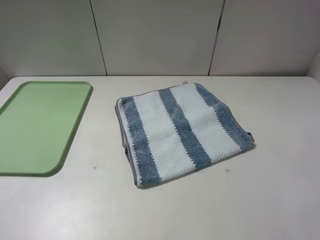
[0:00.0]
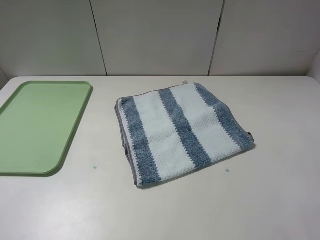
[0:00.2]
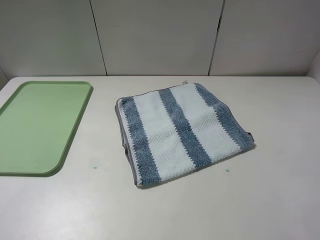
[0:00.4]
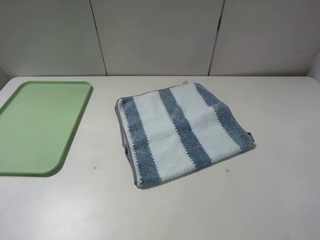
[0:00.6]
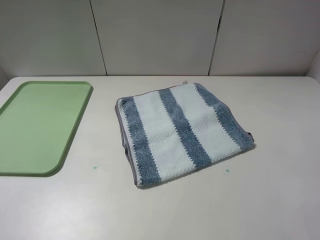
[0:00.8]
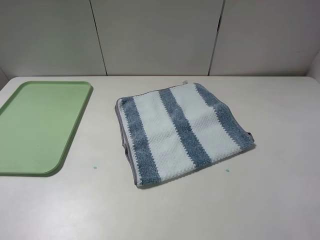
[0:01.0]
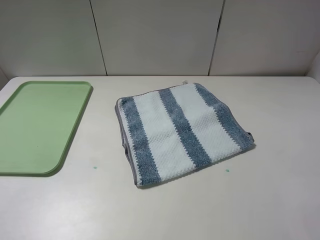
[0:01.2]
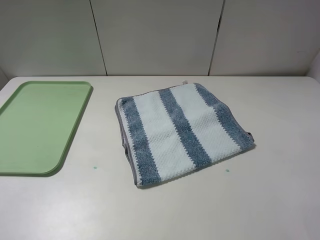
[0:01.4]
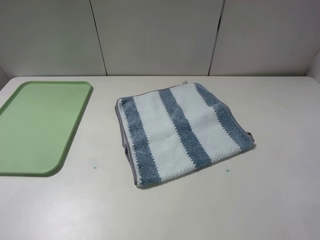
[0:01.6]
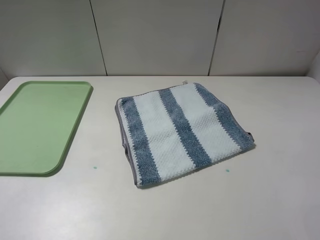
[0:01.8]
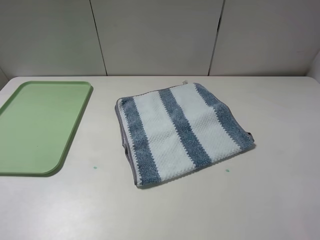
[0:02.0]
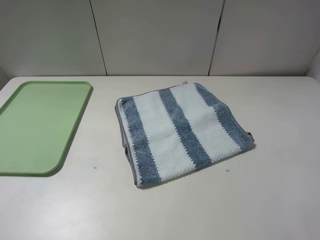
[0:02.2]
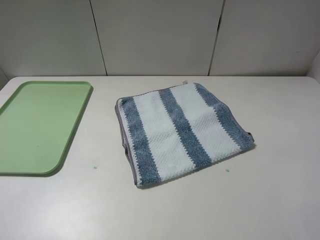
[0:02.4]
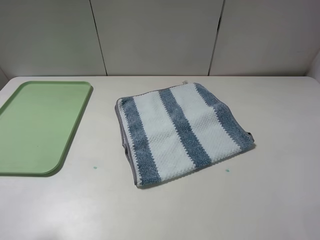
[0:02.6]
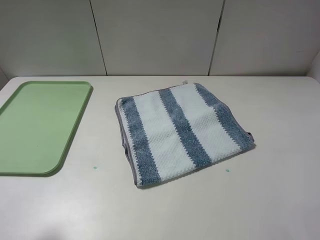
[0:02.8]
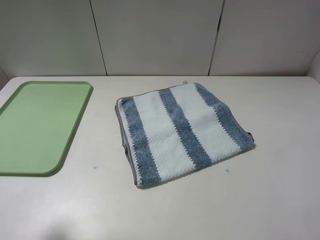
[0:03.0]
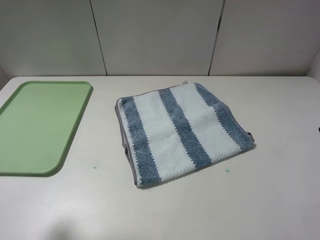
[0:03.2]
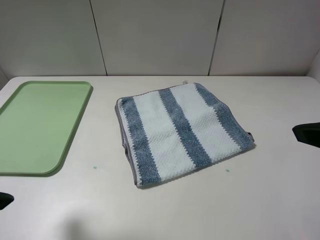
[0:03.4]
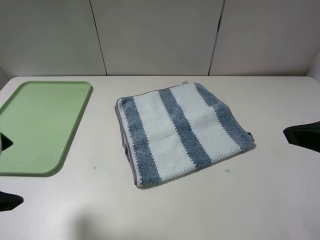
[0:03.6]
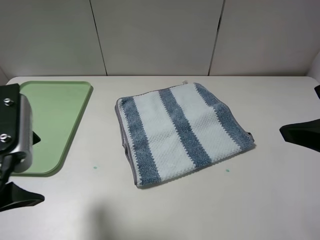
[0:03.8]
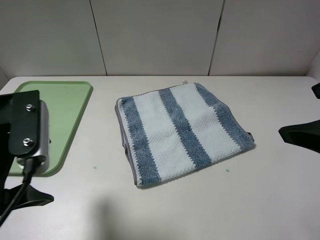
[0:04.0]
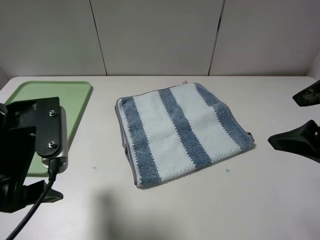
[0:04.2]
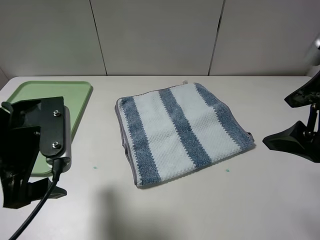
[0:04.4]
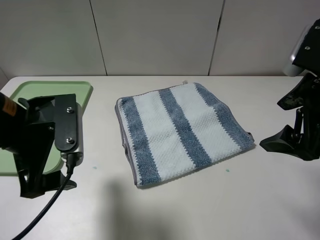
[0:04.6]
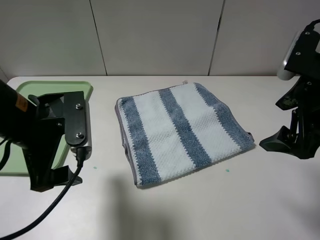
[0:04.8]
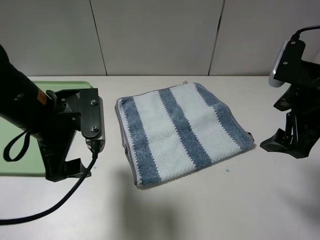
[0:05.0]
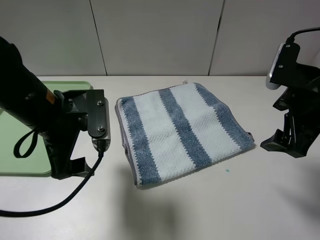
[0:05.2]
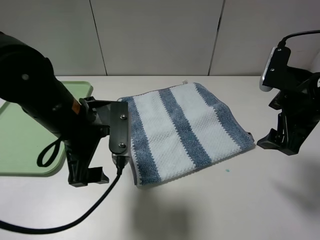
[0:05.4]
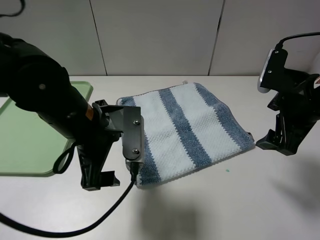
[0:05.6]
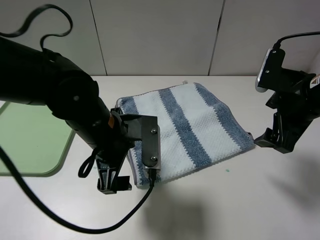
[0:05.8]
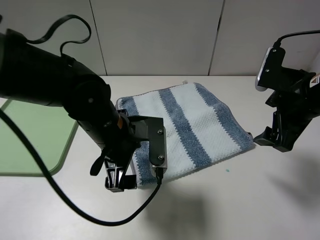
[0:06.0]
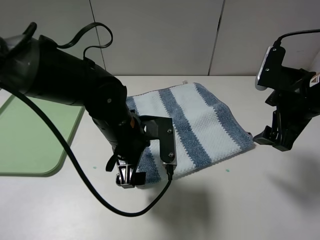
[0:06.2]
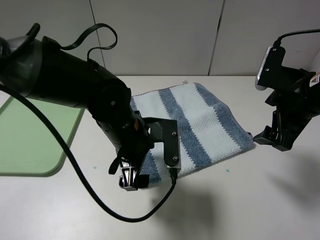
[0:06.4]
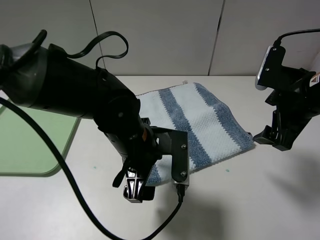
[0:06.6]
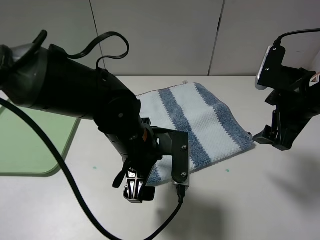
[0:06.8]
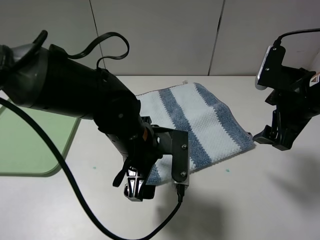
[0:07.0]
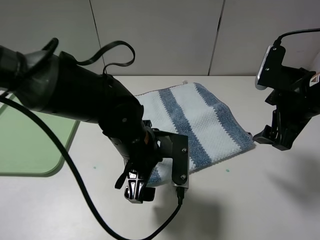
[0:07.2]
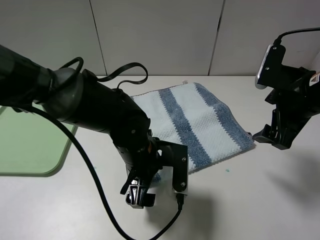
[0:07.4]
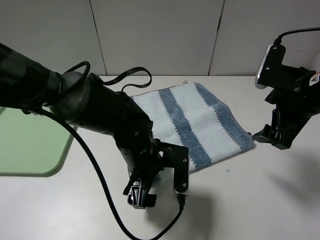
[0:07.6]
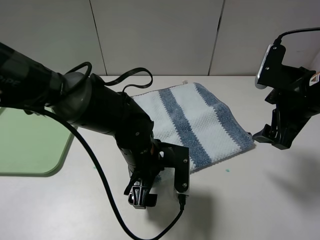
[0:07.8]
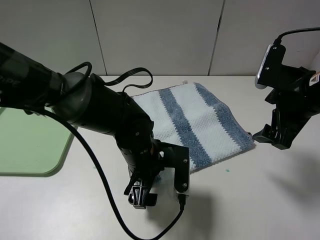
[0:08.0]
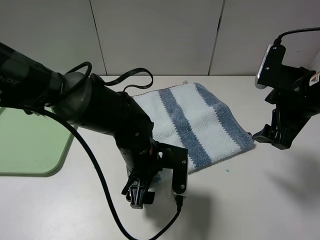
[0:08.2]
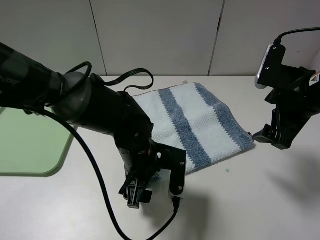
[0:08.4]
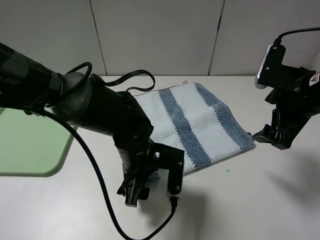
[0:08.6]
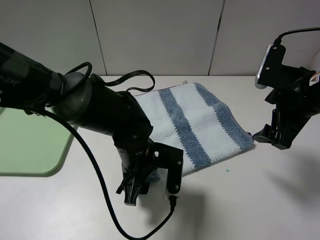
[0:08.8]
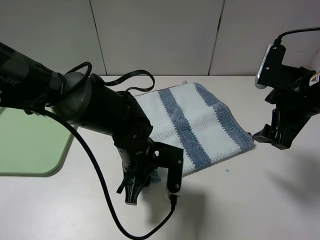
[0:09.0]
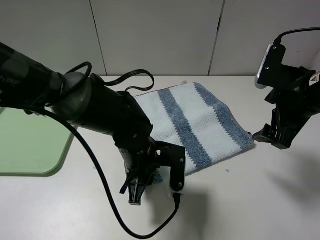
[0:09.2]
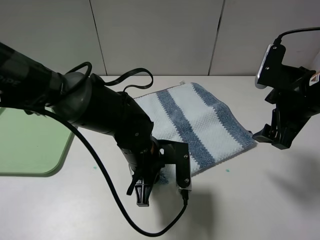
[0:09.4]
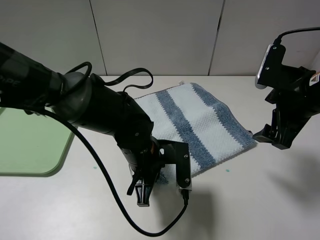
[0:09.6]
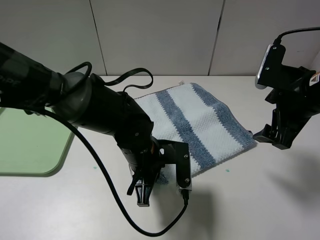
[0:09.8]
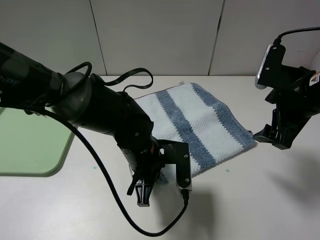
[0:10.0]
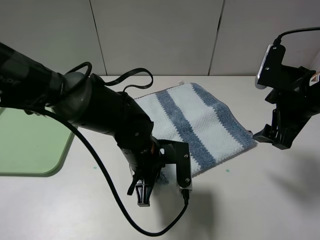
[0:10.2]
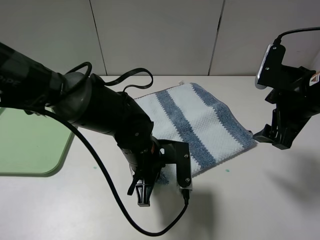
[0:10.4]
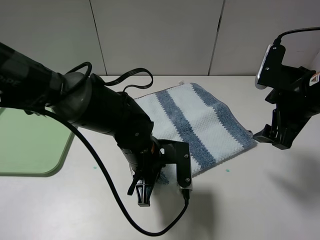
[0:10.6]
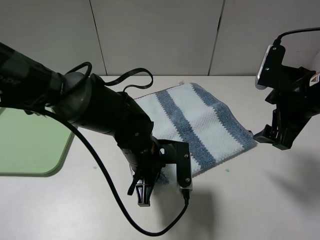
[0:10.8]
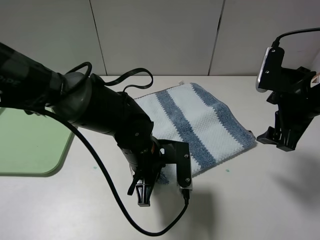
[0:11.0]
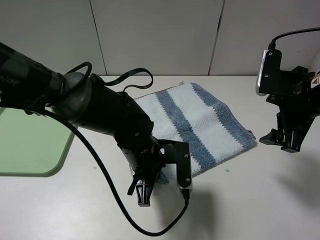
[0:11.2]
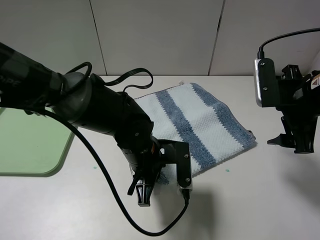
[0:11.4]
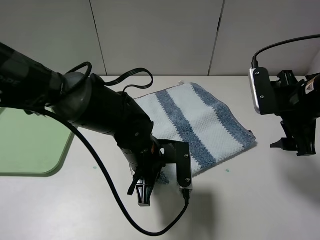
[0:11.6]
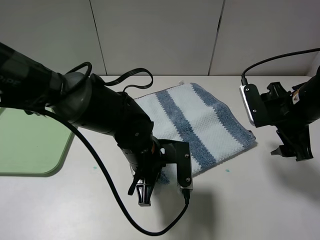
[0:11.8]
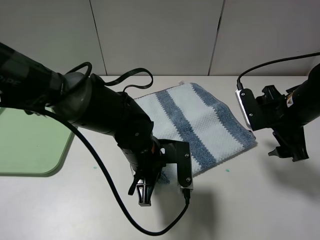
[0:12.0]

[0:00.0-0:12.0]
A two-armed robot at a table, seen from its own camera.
Step, 0:00.0 to 0:09.6: Grasp the blue white towel with the left gripper.
0:00.0 to 0:01.6: Neither gripper changes place.
0:01.6 to 0:03.0: The left gripper heads forward, covering some 10 cm.
0:03.0 to 0:04.4: The right gripper shifts some 10 cm forward and downward. The left gripper goes roughly 15 cm to the right, forward and downward.
0:04.4 to 0:06.0: The left gripper travels to the right, downward and forward by about 15 cm, while the right gripper goes approximately 10 cm forward and downward.
0:06.0 to 0:07.6: The left gripper moves downward, about 5 cm.
0:07.6 to 0:09.0: The left gripper closes.
0:09.0 to 0:10.4: The left gripper closes.
0:10.4 to 0:12.0: The right gripper heads downward, covering roughly 5 cm.

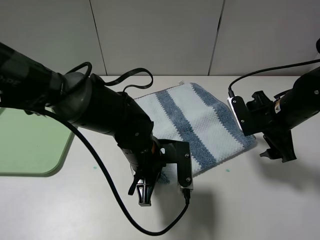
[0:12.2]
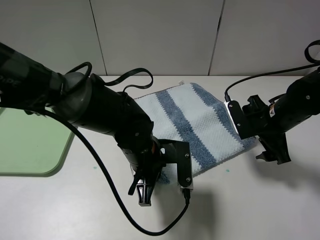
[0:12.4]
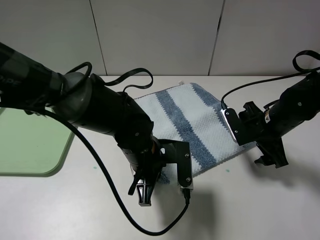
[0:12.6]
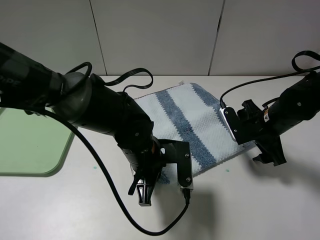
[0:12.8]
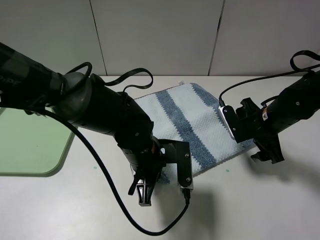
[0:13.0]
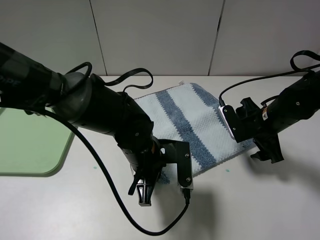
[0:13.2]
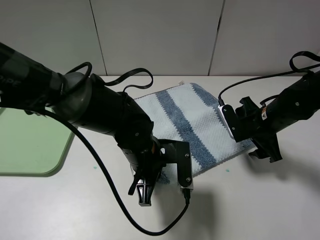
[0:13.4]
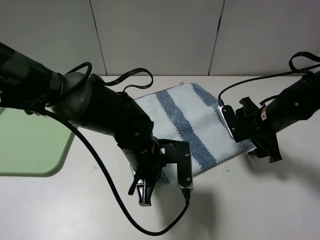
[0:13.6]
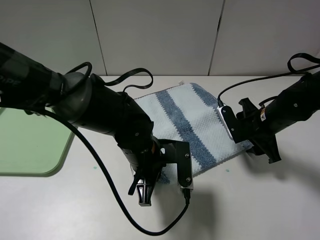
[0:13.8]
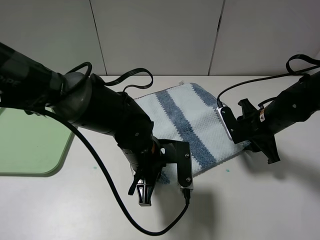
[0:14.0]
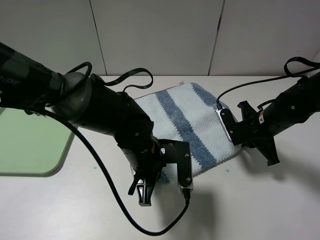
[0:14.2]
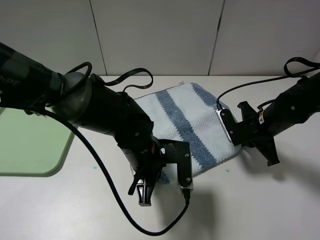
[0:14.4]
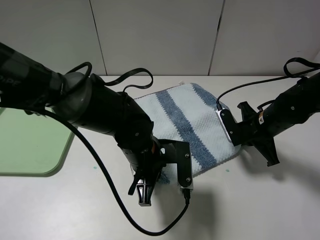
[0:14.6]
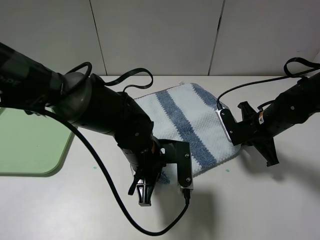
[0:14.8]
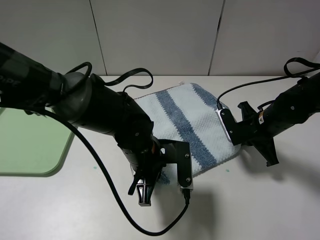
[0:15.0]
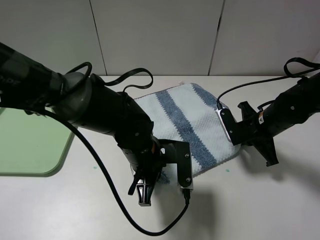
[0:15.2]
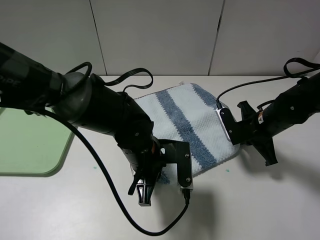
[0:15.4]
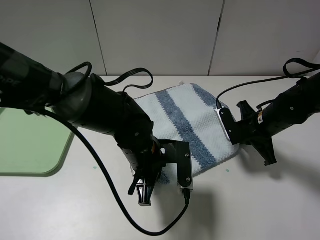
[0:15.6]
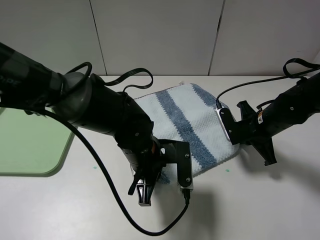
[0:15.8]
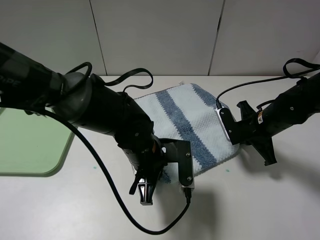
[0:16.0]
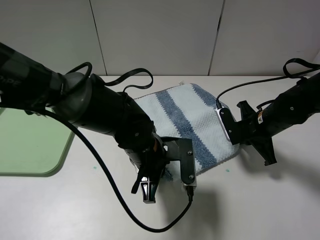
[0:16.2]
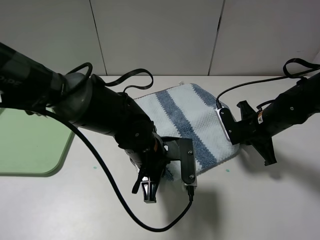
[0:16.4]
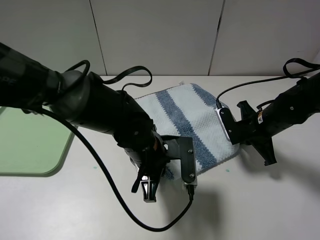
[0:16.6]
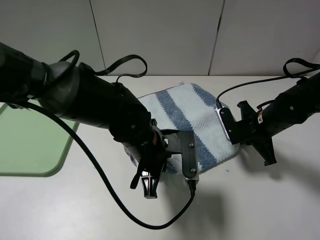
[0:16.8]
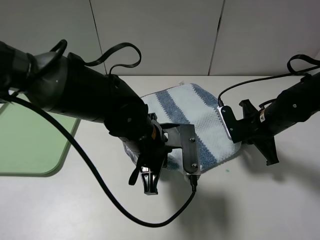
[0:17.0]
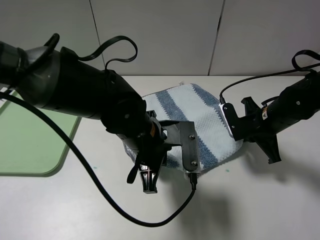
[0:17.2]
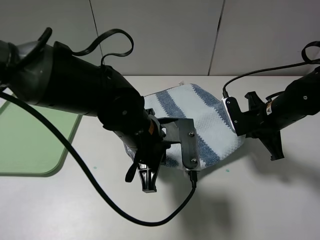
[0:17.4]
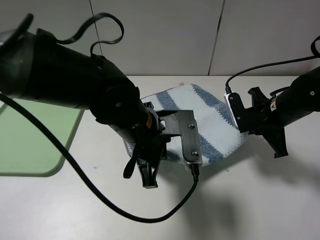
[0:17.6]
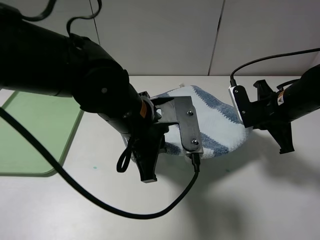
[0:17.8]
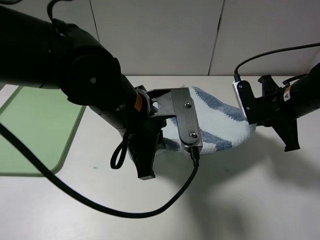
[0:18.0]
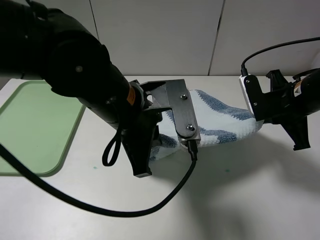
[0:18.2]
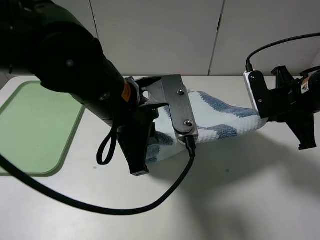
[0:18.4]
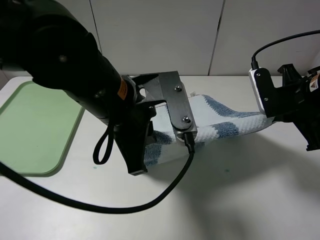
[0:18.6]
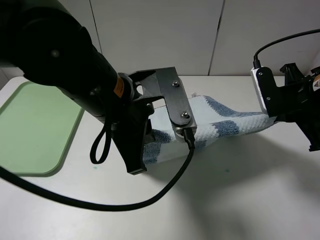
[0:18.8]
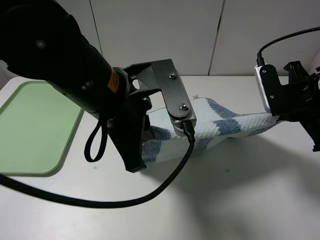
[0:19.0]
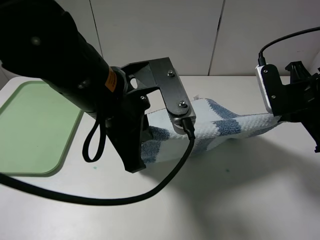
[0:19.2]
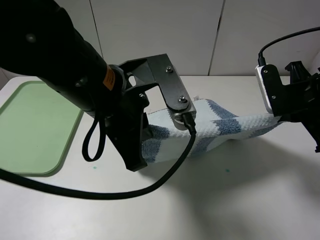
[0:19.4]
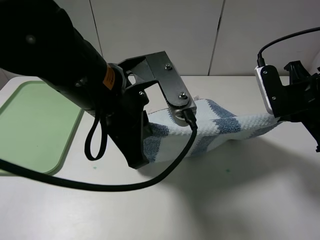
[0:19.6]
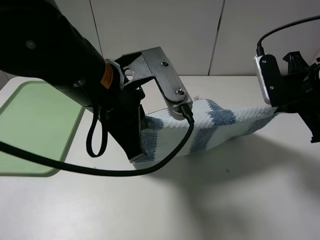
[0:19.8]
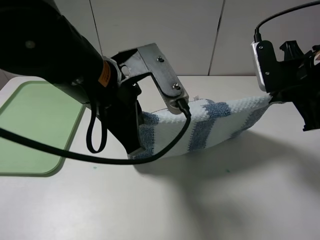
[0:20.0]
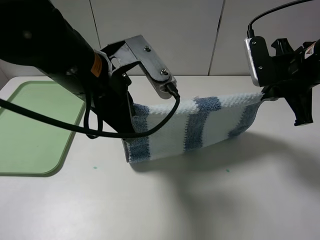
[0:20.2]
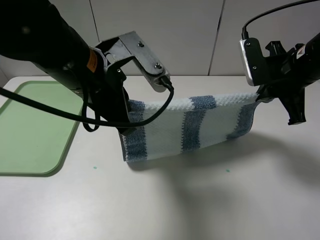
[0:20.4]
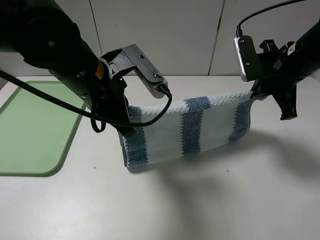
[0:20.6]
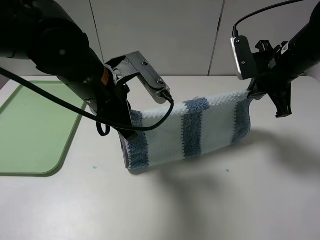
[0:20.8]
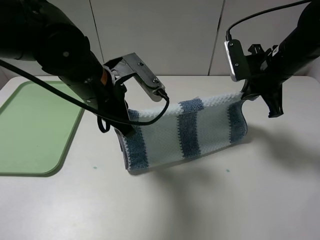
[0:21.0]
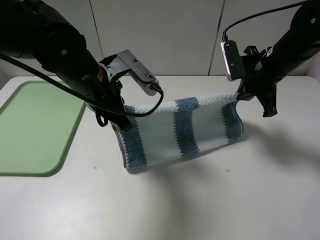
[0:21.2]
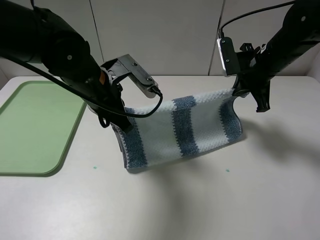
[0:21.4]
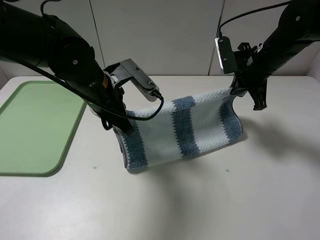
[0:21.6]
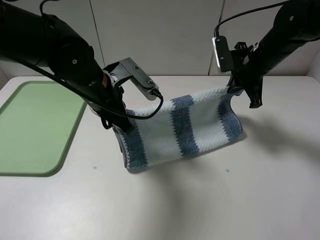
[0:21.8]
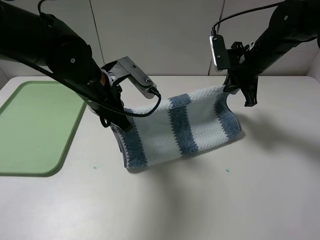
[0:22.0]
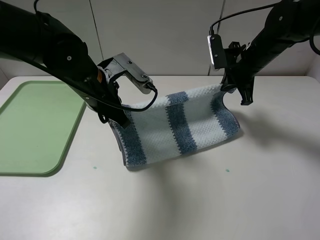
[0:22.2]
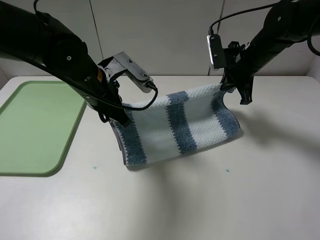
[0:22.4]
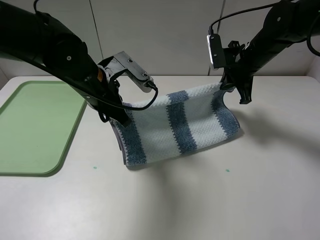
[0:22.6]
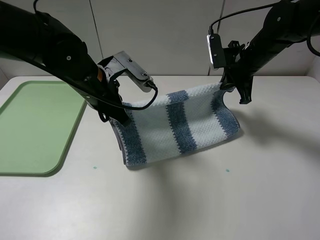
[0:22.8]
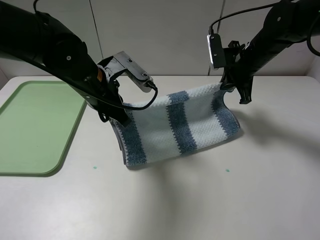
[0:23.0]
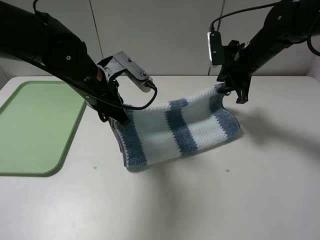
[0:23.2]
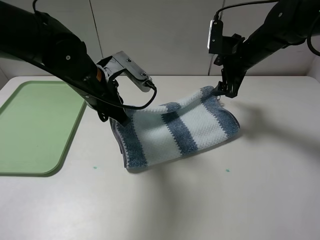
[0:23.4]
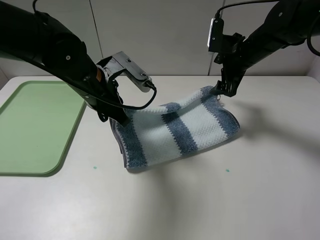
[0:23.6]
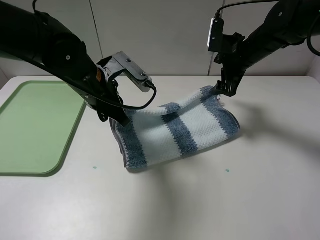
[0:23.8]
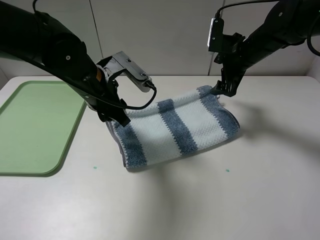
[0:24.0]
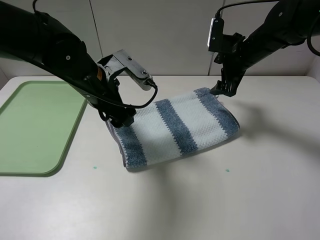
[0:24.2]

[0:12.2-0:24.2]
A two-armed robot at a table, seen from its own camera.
Step, 0:12.2 to 0:15.6: Grasp the blue white towel with the right gripper.
0:12.2 to 0:13.8: The grippers move only a little.
0:13.8 to 0:15.2: The right gripper closes.
0:15.2 to 0:16.6: Both grippers stay put.
0:16.6 to 0:18.2: The grippers both shift upward by roughly 10 cm.
0:19.8 to 0:21.2: The two grippers go about 10 cm forward.
0:21.2 to 0:22.6: The right gripper goes approximately 5 cm forward.
0:22.6 to 0:24.2: The right gripper opens. Meanwhile the left gripper opens.
